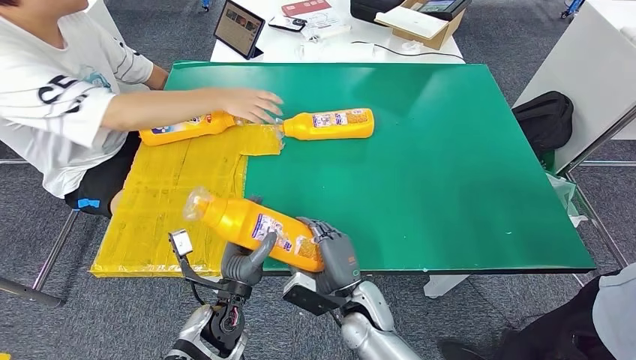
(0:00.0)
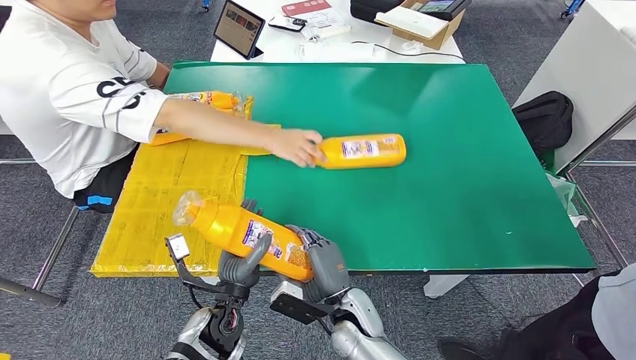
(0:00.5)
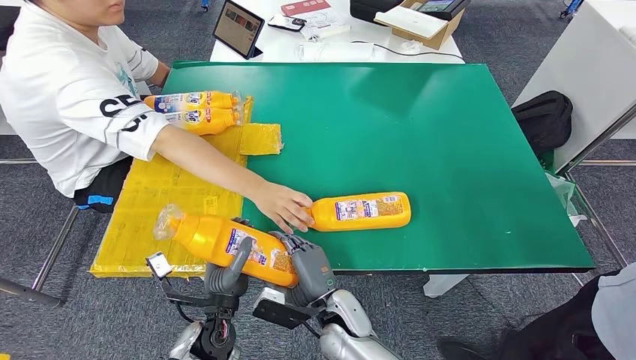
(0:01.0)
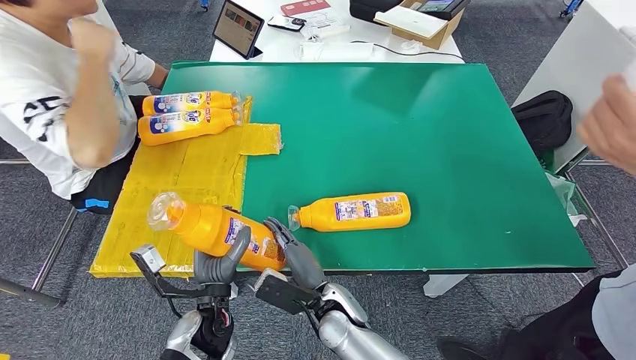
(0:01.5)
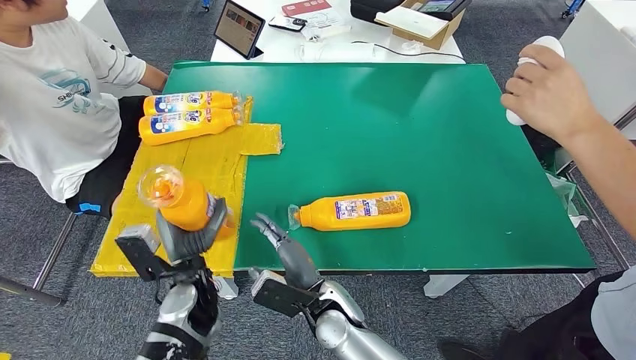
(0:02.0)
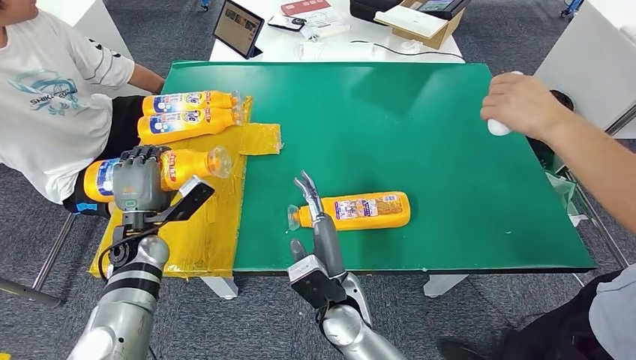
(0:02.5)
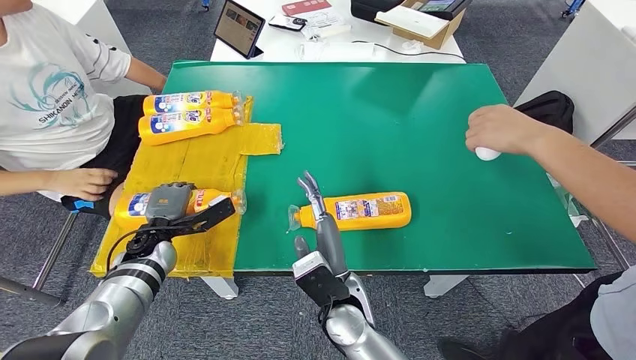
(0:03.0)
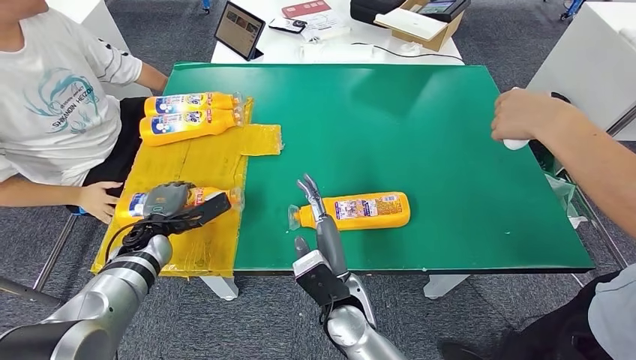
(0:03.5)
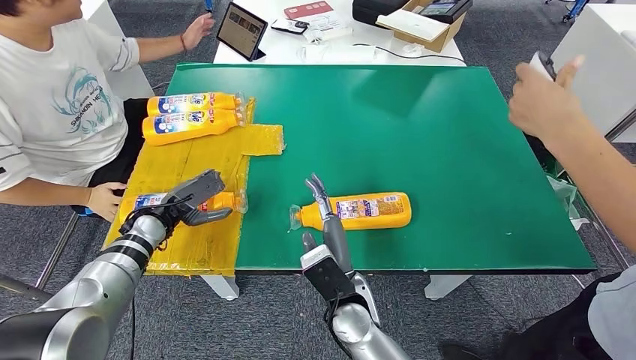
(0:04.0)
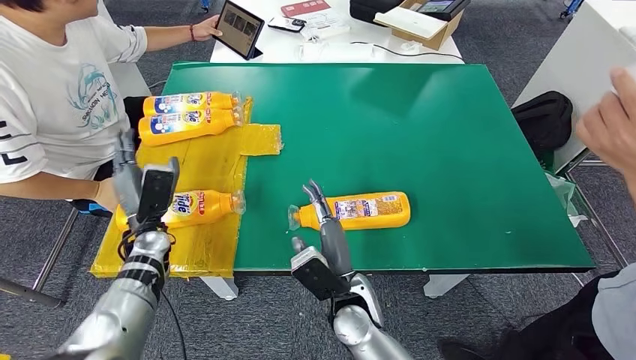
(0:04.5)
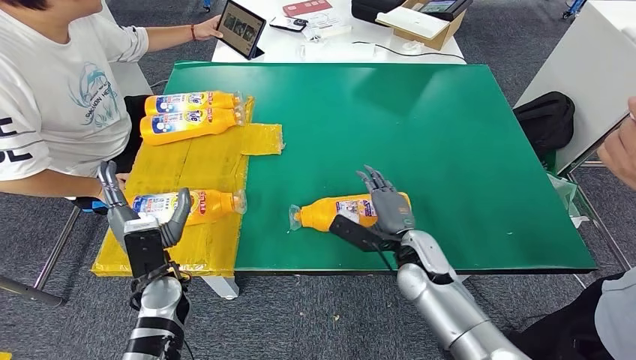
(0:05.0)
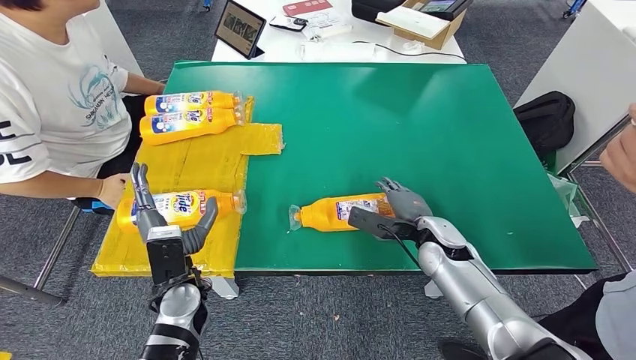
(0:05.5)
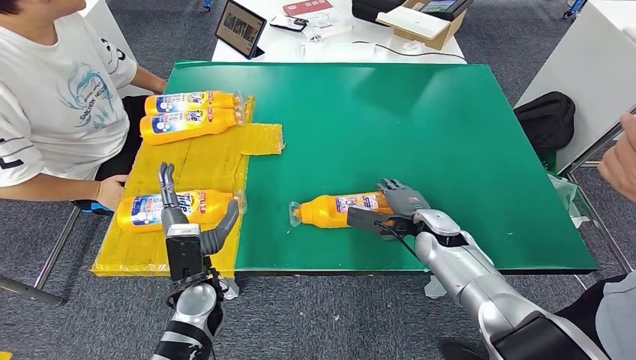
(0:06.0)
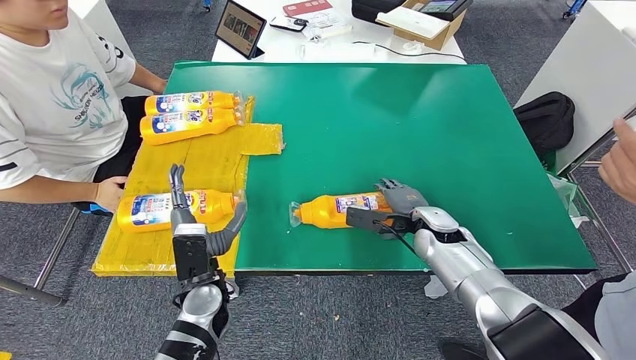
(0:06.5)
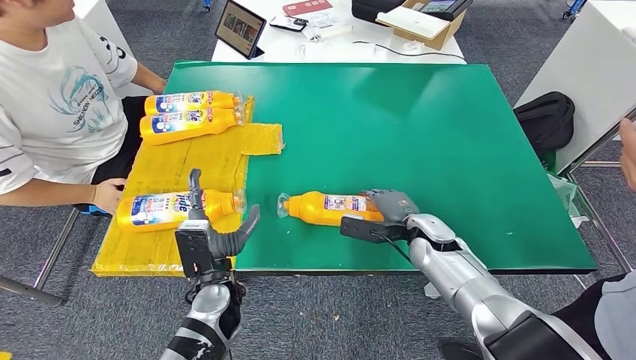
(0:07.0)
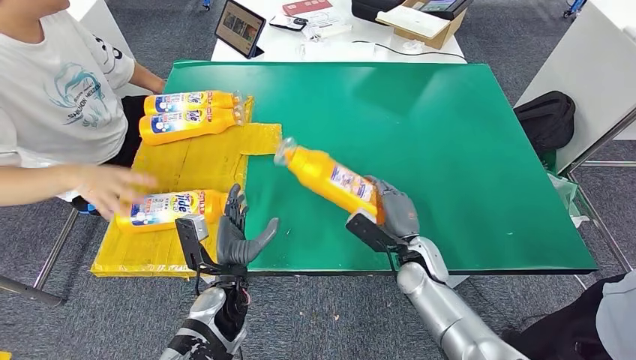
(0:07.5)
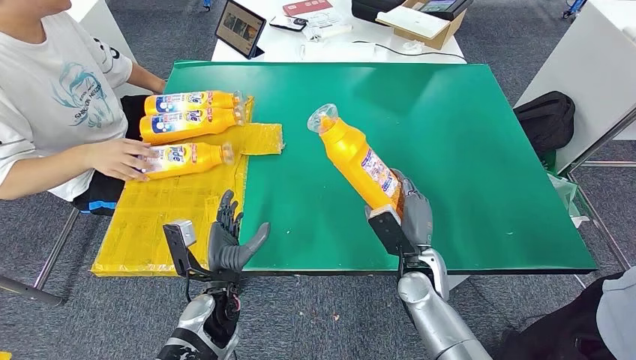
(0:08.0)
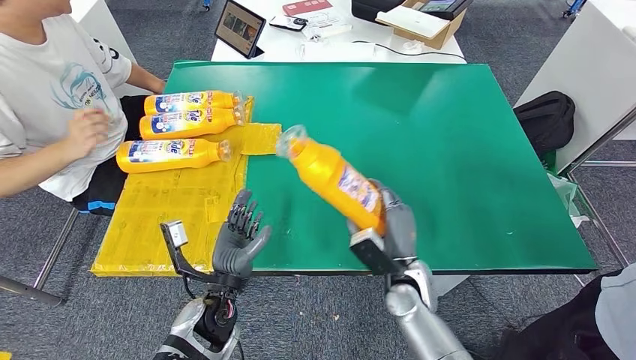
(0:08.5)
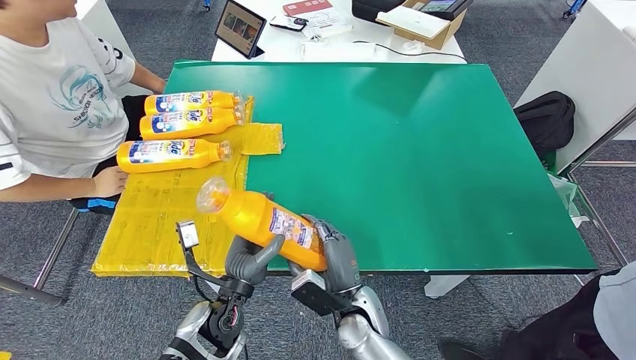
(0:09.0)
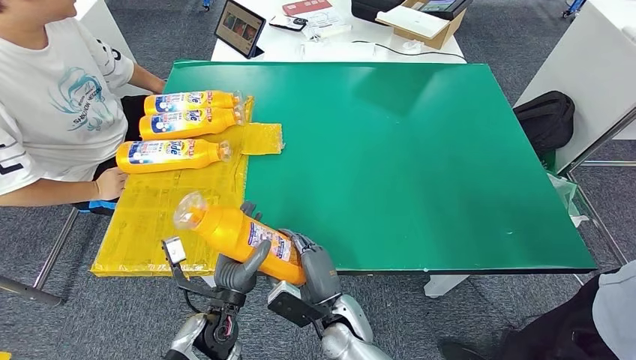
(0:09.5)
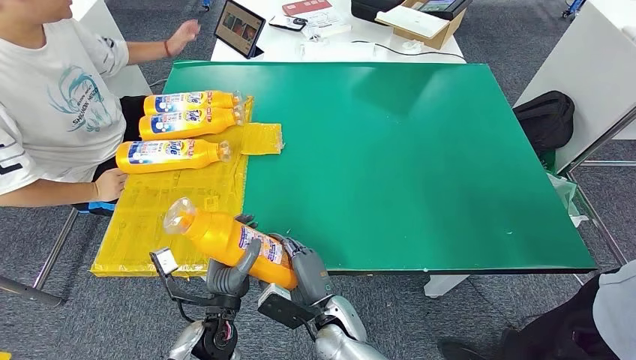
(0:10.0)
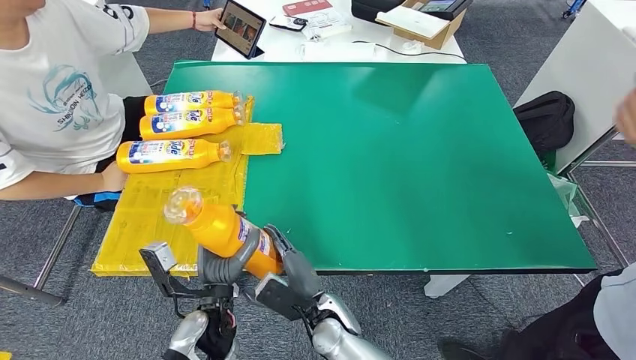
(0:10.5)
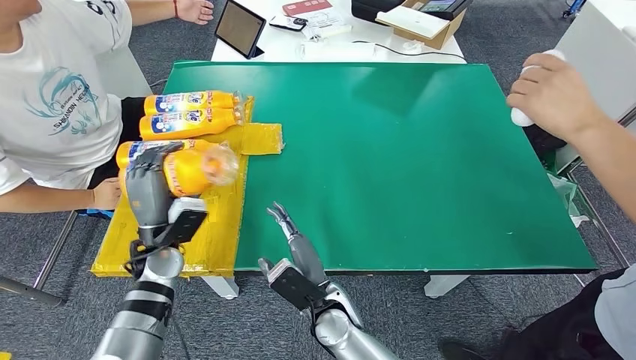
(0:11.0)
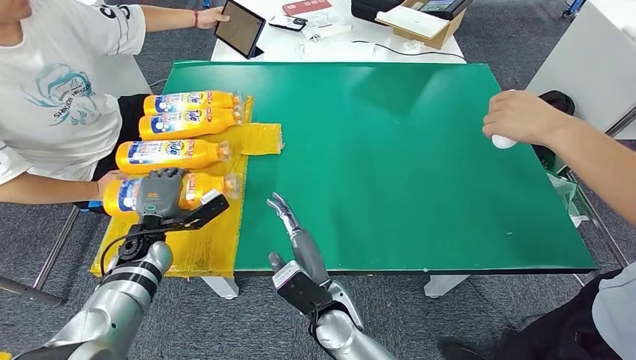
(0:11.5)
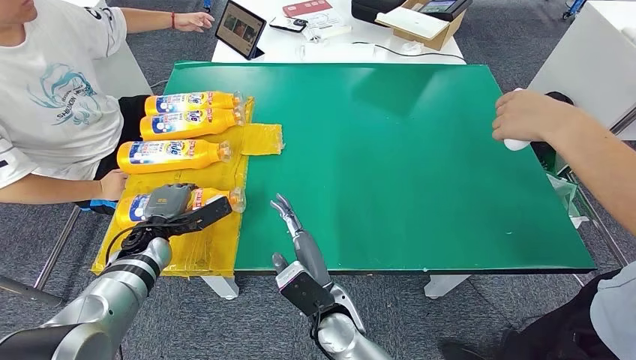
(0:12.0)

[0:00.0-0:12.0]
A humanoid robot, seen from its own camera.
Step, 0:01.0 to 0:03.5: Flip the bottle to face forward.
Step, 0:04.0 to 0:08.5: Pick up the bottle from the table.
Step, 0:09.0 to 0:12.0: Flip the bottle to face forward.
0:08.0 to 0:10.0: The right hand shifts approximately 20 cm to the left and backward.
